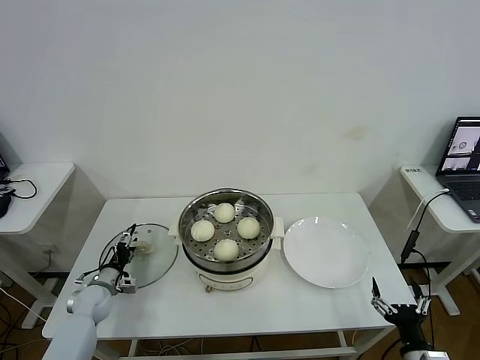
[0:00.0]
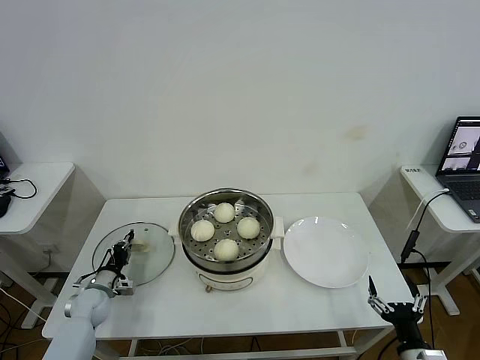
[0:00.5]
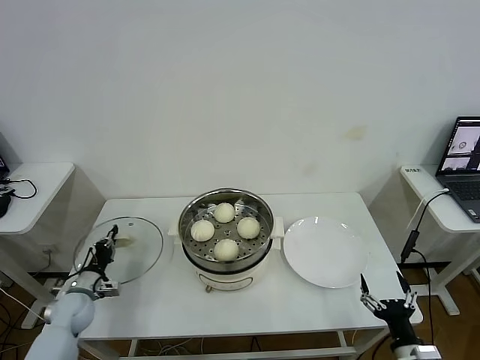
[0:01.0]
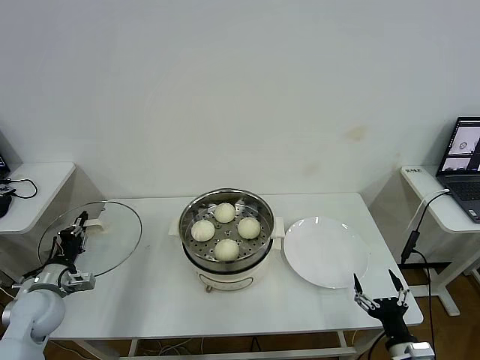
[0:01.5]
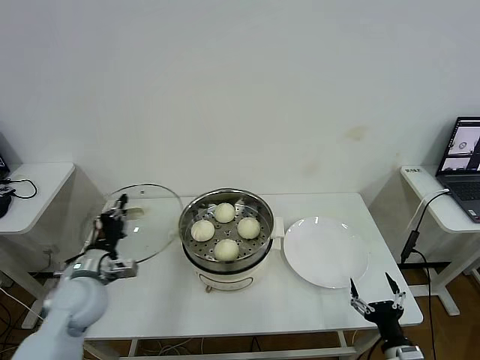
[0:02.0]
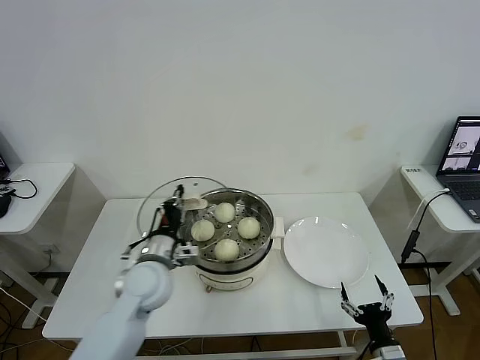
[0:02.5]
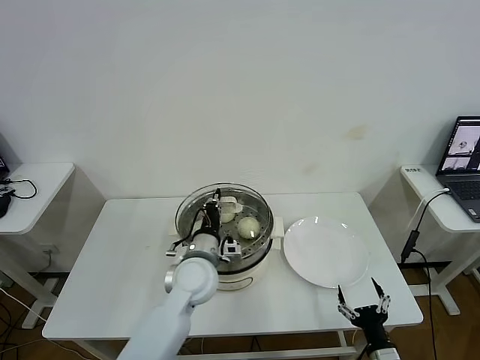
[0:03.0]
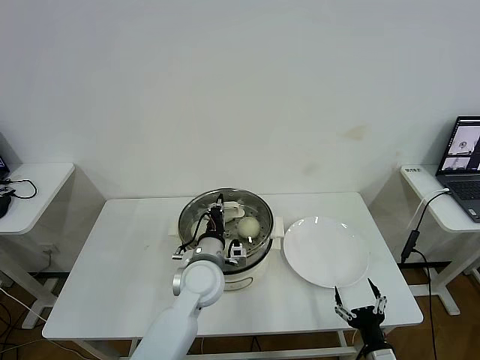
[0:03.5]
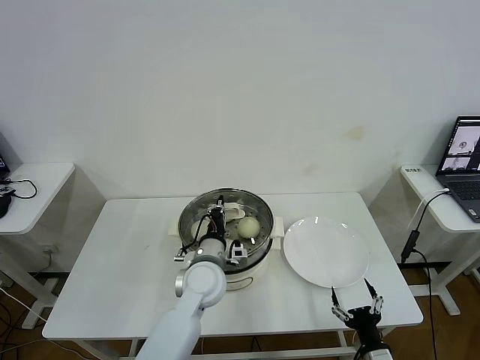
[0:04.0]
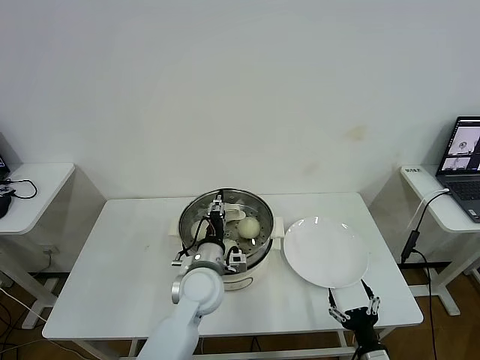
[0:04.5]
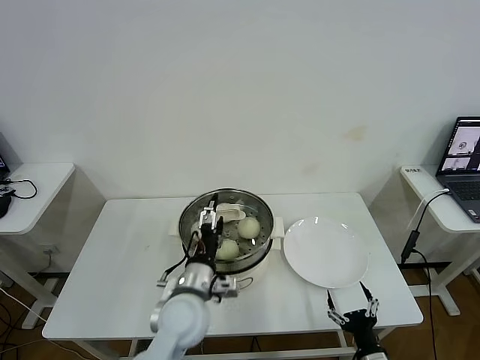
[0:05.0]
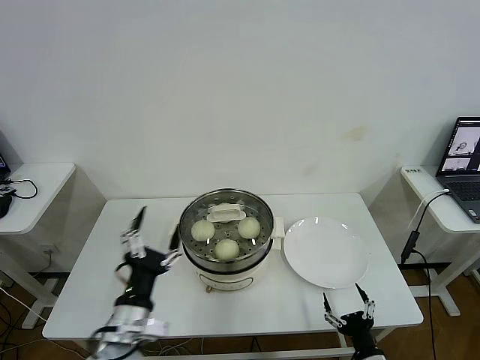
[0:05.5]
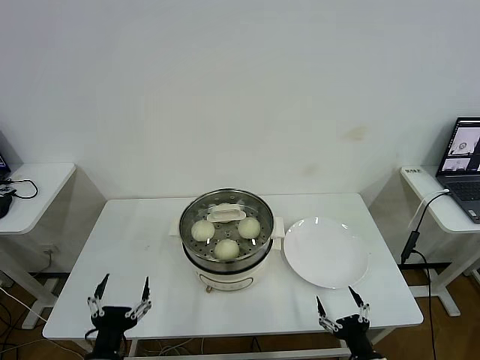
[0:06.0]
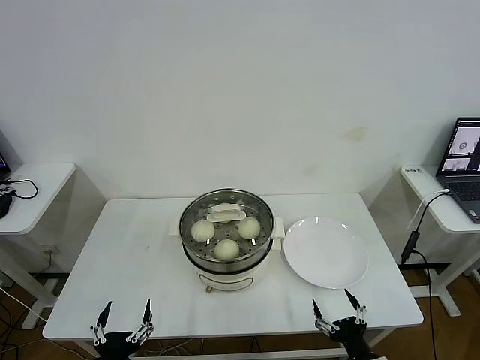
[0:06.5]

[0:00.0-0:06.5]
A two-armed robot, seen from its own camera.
Task of the whole recording: take steamed baozi put them in steamer then cover it.
Step, 0:01.0 to 0:04.5: Place the pot lid on the steamer with left gripper.
0:00.0 to 0:02.0: The left gripper heads upward, covering roughly 20 cm, and closes up.
0:02.0 to 0:04.5: The left gripper heads to the right, covering about 25 cm, and opens.
0:04.5 to 0:06.5: The left gripper moves backward and to the left, roughly 30 cm, and opens up.

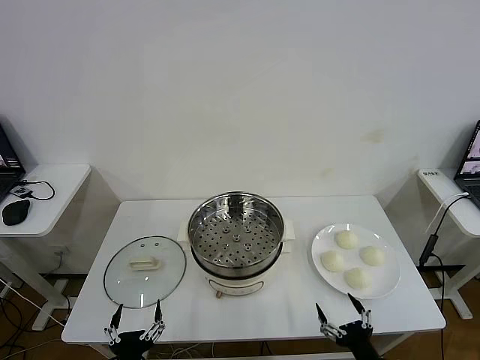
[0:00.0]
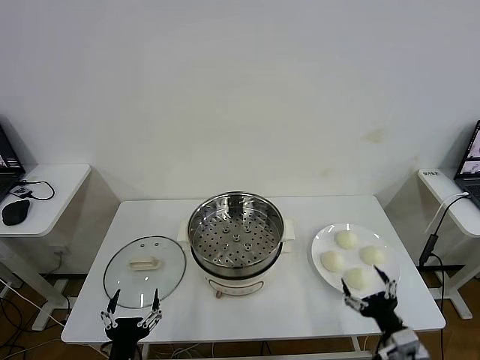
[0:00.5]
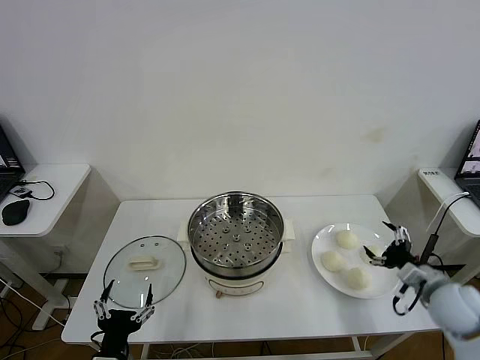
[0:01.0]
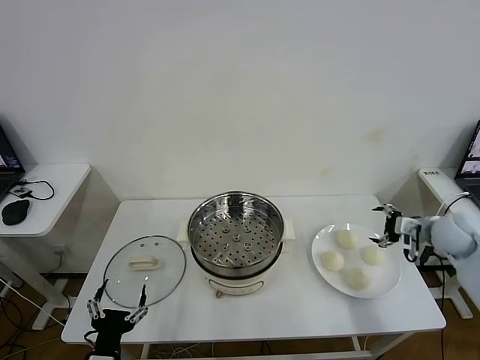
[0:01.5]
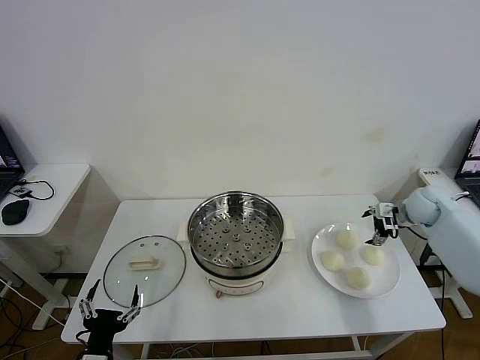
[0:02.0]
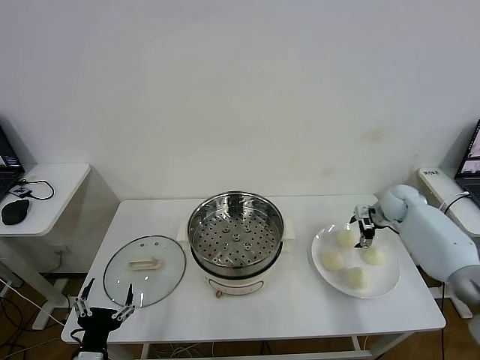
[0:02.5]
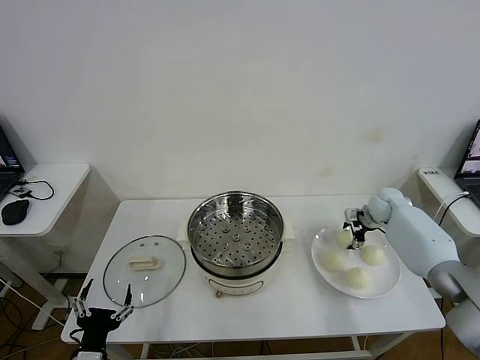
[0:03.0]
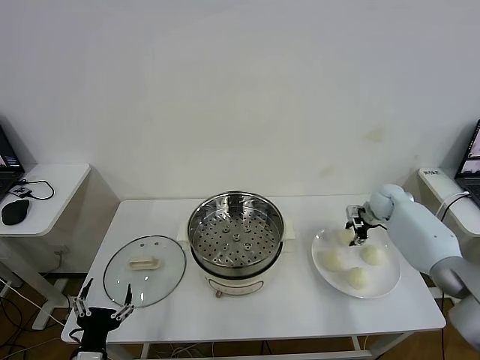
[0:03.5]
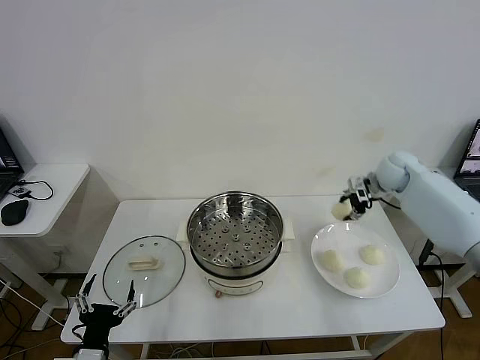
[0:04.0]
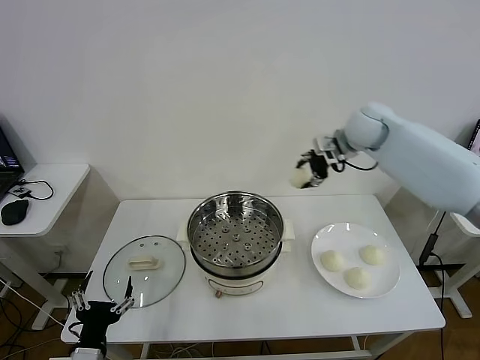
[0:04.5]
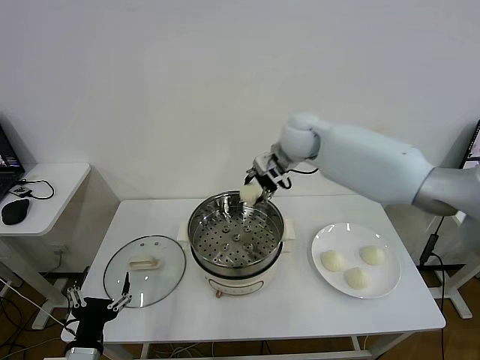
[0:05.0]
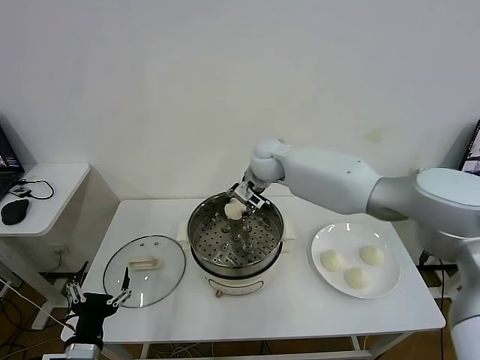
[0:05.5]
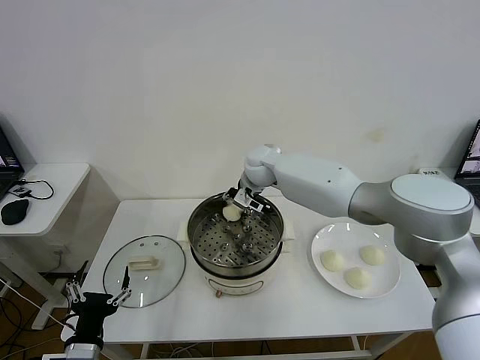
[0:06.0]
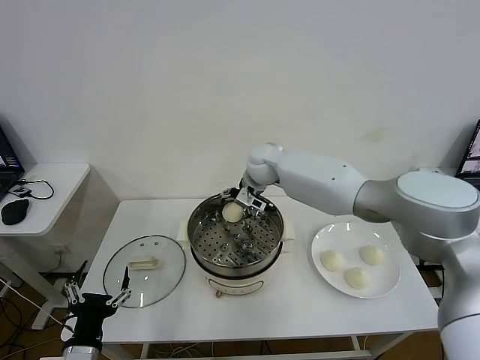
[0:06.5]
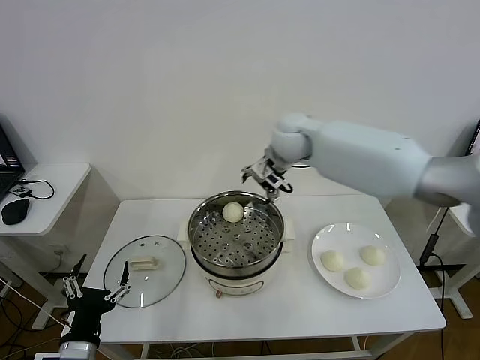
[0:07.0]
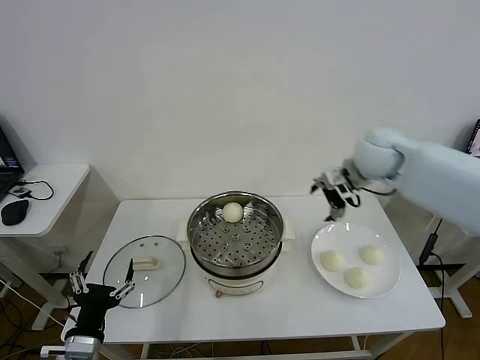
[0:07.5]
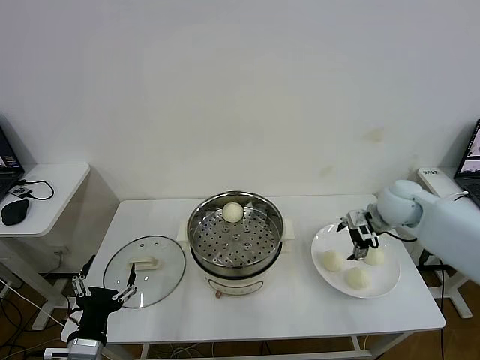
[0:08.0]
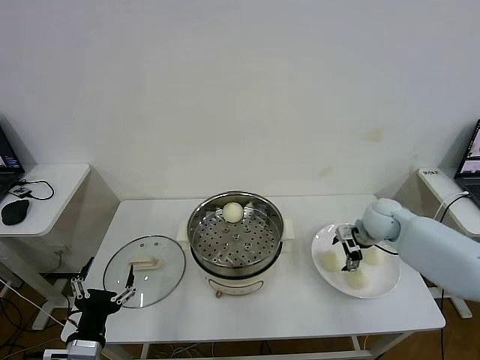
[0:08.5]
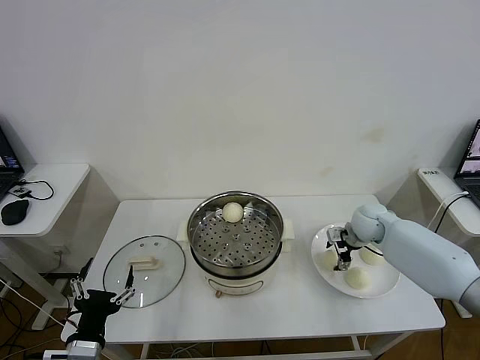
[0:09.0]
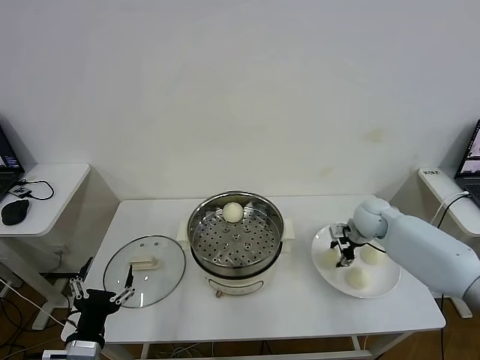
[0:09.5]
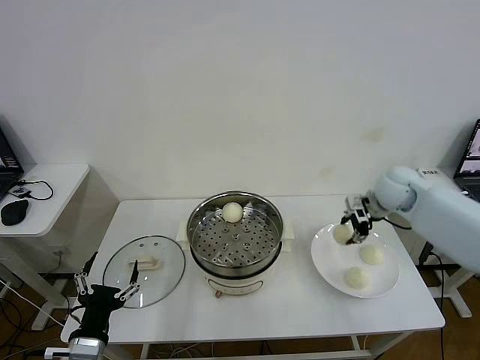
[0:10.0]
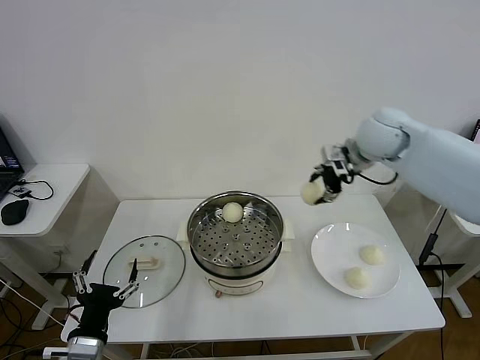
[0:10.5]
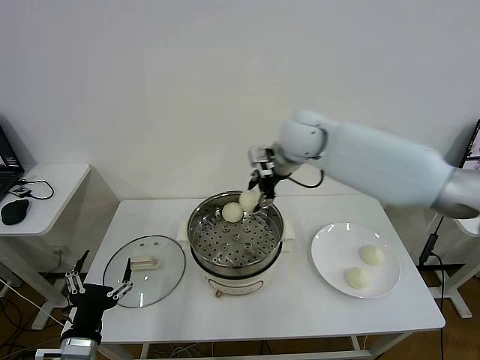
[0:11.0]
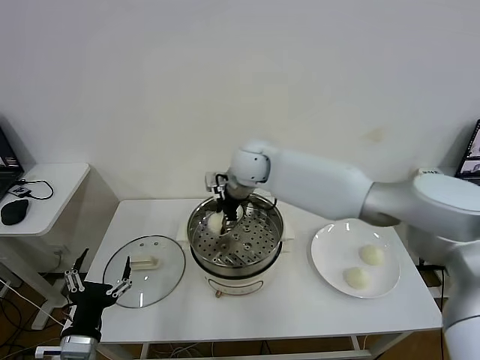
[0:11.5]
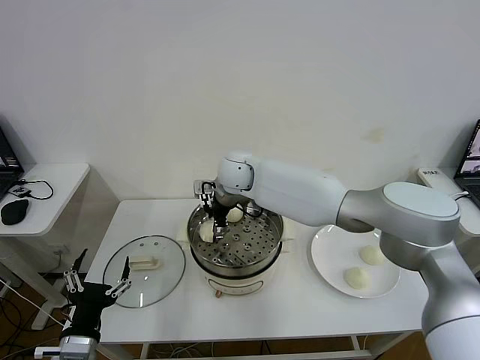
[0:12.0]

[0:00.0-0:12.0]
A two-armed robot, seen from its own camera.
Task of the whole recording: take steamed baozi put them in steamer then cover it.
Step, 0:00.0 to 0:03.0: Grasp the baozi in the plate with right gripper.
Step, 0:03.5 to 0:06.0: Place the baozi on the steamer with right gripper.
Step, 0:06.5 to 0:09.0: Grasp the baozi in the plate with right gripper.
0:02.0 to 0:04.0: The right gripper heads to the left, upward and forward, covering about 10 cm, and closes its fingers.
0:04.0 to 0:06.0: The right gripper is displaced to the left by approximately 35 cm.
0:06.0 to 0:08.0: The right gripper goes about 30 cm to the right, and opens.
0:08.0 to 0:10.0: The right gripper goes downward and returns, some 10 cm each way, and closes.
0:10.0 to 0:12.0: The right gripper moves to the left, roughly 35 cm, and opens up.

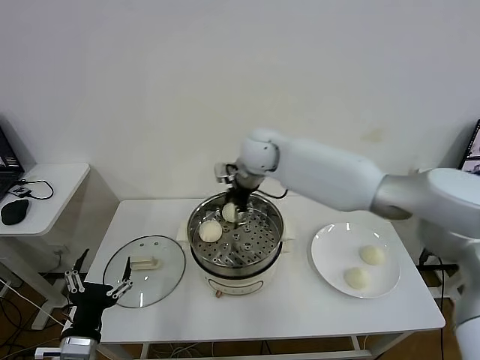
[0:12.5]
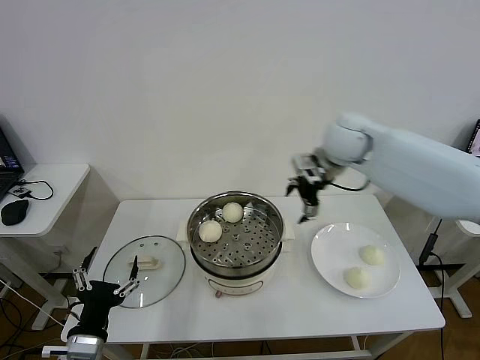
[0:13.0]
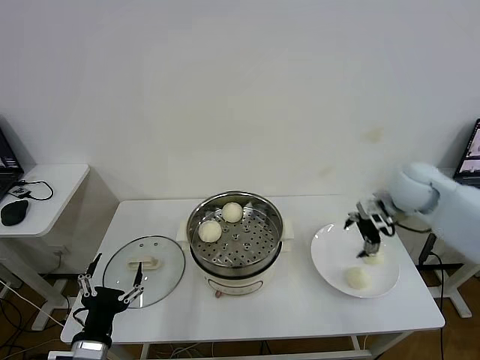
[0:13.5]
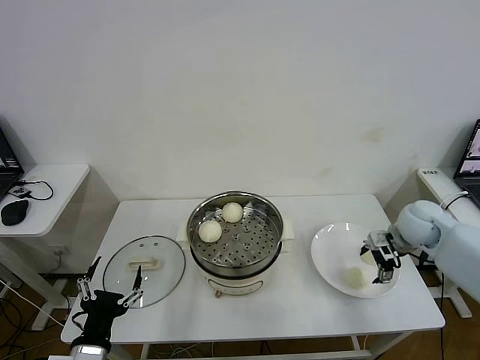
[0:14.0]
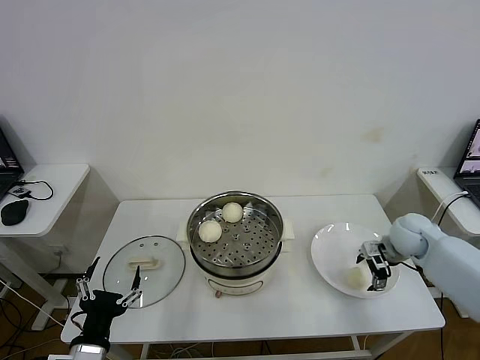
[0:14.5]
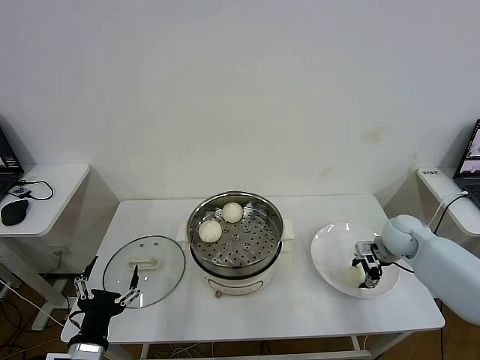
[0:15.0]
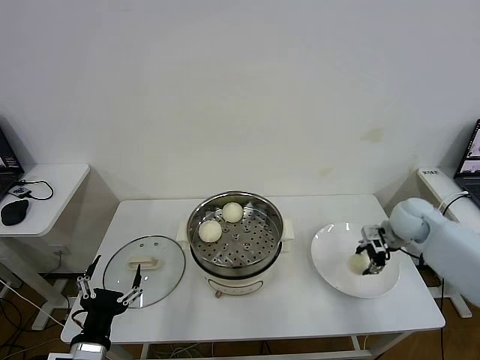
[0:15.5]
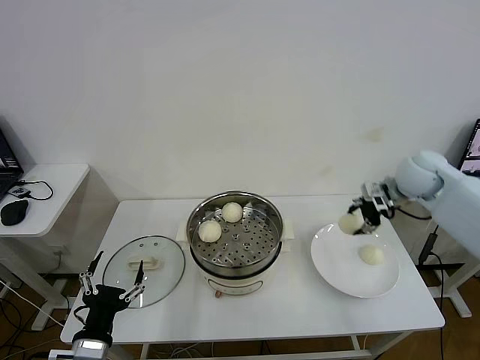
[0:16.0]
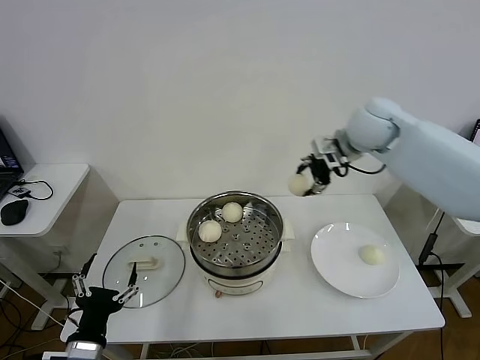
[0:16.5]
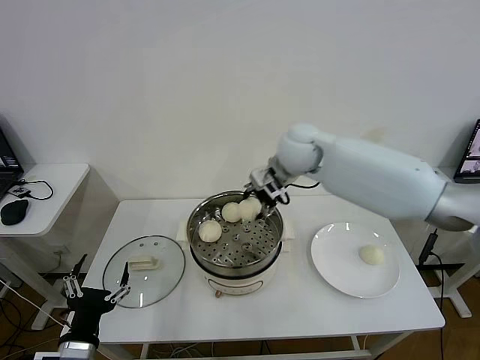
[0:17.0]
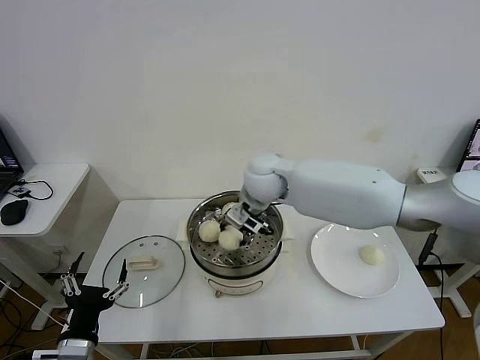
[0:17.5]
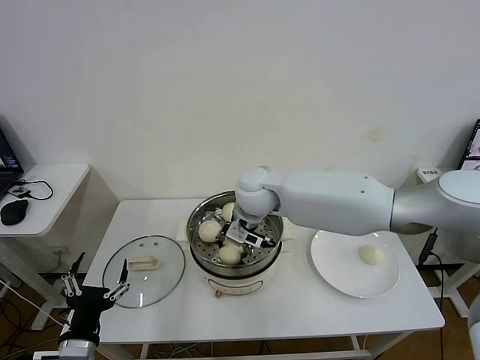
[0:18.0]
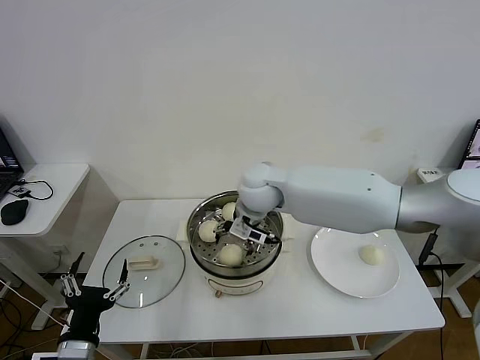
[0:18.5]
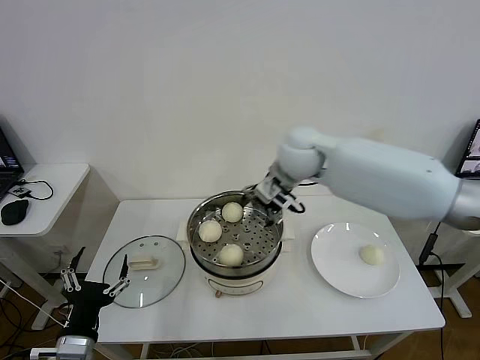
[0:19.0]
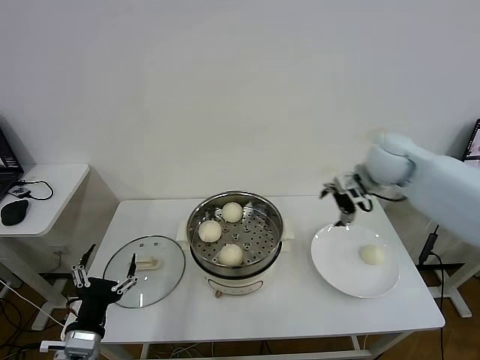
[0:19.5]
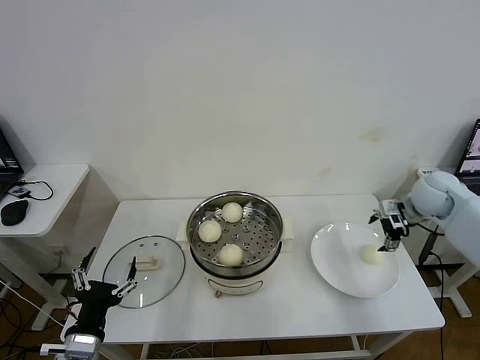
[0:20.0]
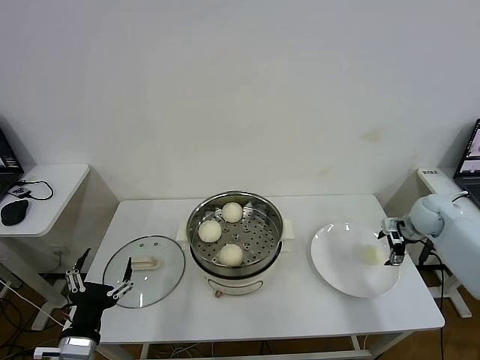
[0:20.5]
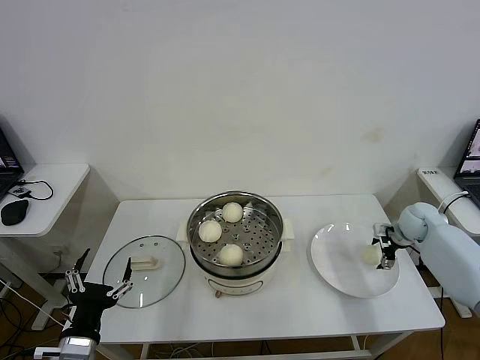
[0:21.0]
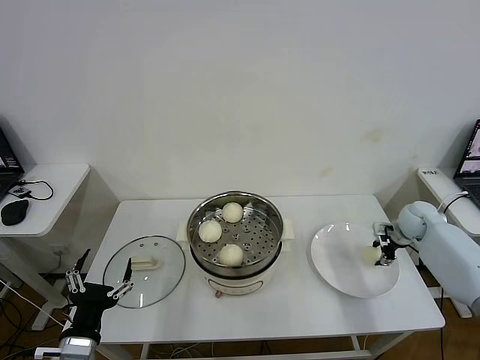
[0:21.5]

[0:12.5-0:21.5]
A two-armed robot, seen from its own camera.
Task of the whole recording: take steamed baozi put them in steamer then cover it.
Step, 0:12.5 to 0:15.0: Grasp the baozi in the plate with right gripper.
Step, 0:15.5 to 0:18.5: Place the baozi on the steamer with right gripper.
0:12.5 to 0:14.5: The right gripper heads to the right and downward, covering about 40 cm.
0:14.5 to 0:17.0: The right gripper moves to the left and upward, about 35 cm, and closes.
0:17.0 to 0:19.5: The right gripper heads to the right, covering roughly 20 cm, and opens.
0:19.5 to 0:21.5: The right gripper heads downward and to the right, covering approximately 25 cm, and closes.
